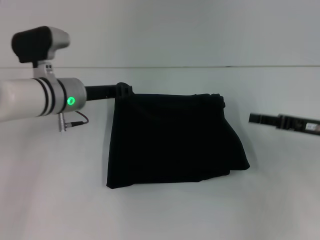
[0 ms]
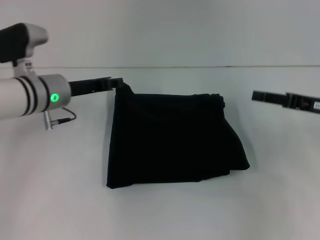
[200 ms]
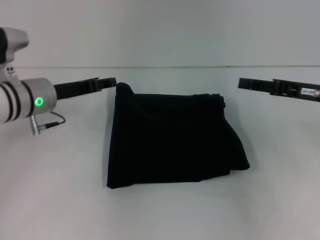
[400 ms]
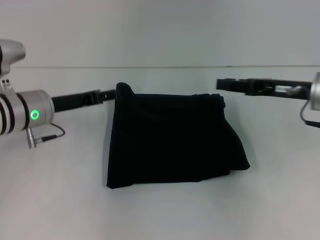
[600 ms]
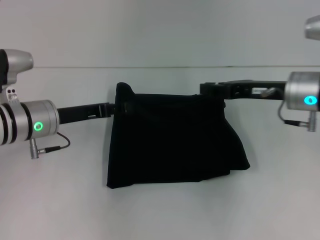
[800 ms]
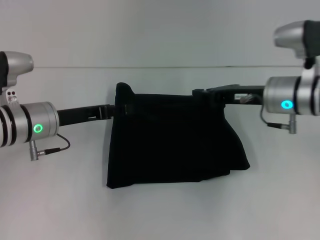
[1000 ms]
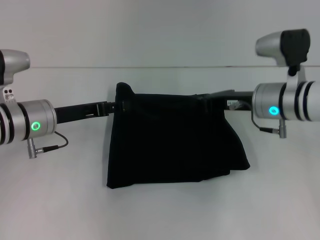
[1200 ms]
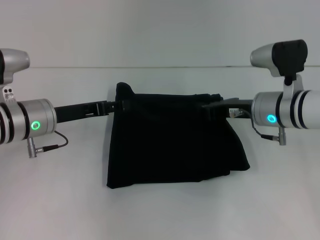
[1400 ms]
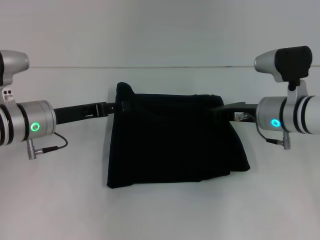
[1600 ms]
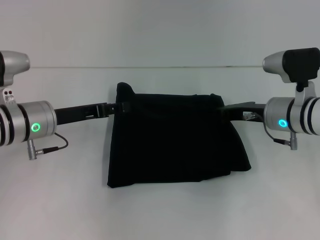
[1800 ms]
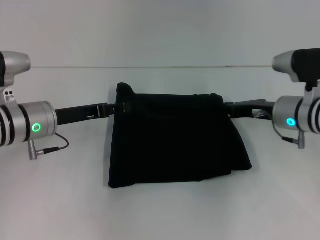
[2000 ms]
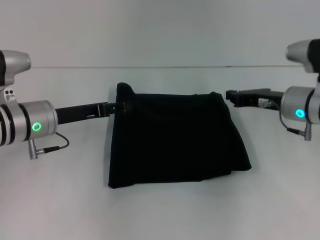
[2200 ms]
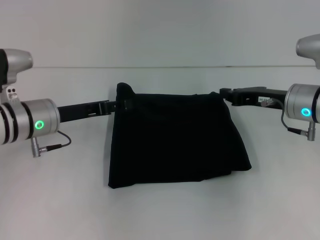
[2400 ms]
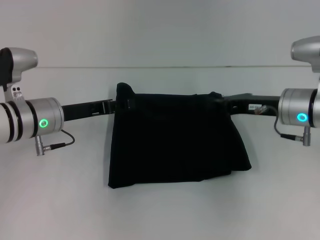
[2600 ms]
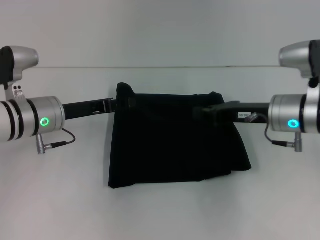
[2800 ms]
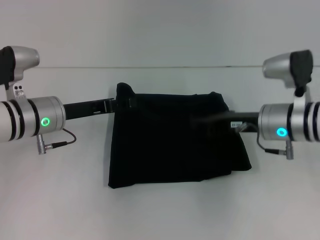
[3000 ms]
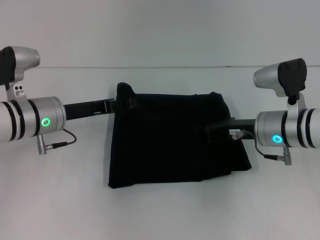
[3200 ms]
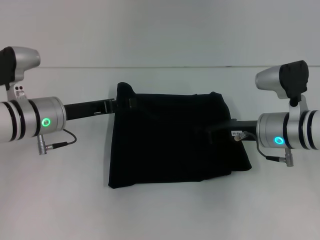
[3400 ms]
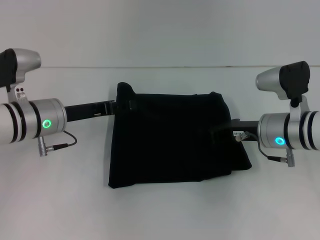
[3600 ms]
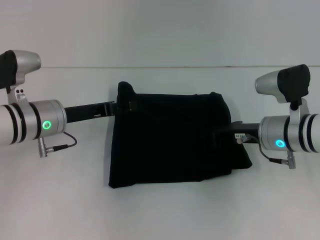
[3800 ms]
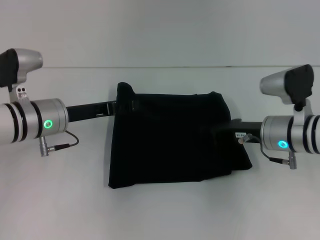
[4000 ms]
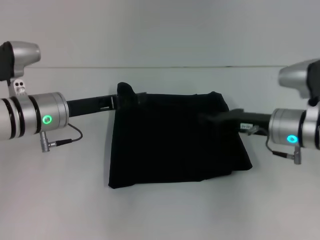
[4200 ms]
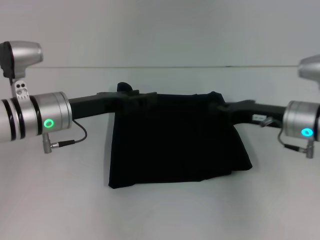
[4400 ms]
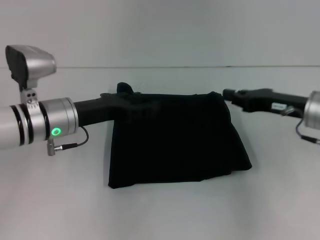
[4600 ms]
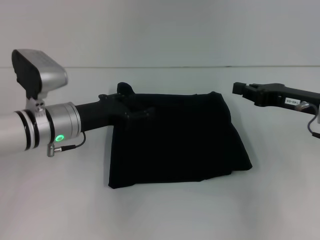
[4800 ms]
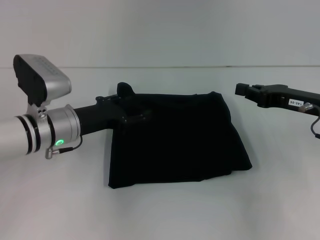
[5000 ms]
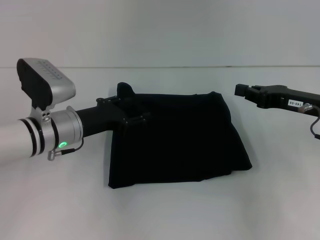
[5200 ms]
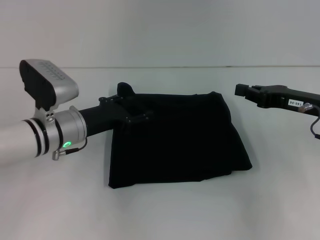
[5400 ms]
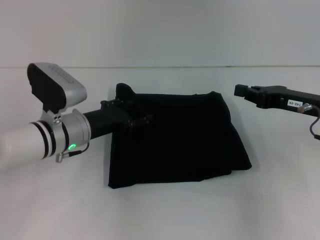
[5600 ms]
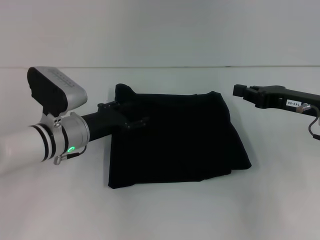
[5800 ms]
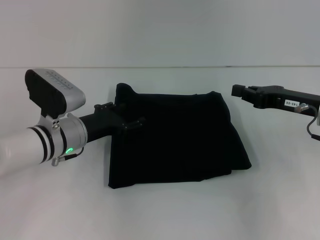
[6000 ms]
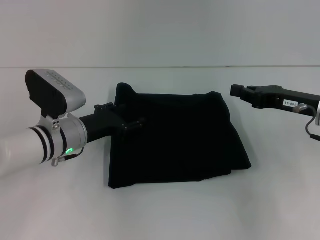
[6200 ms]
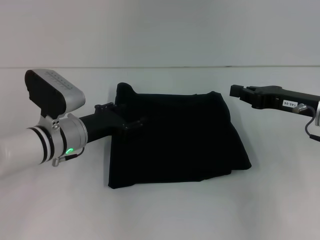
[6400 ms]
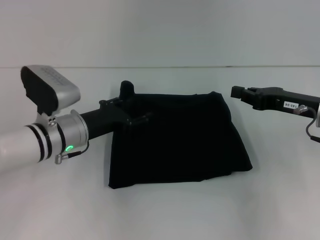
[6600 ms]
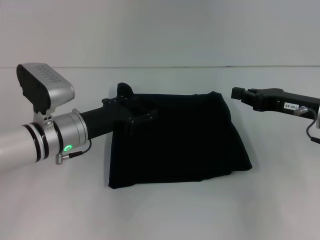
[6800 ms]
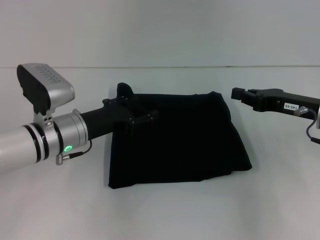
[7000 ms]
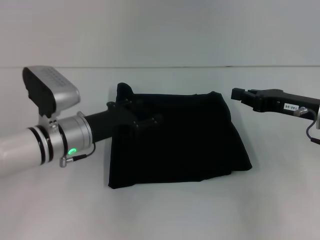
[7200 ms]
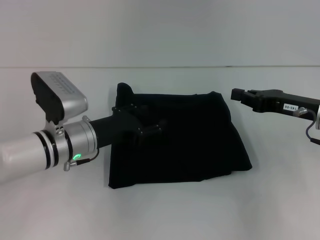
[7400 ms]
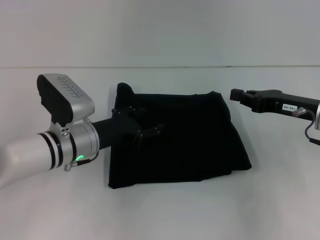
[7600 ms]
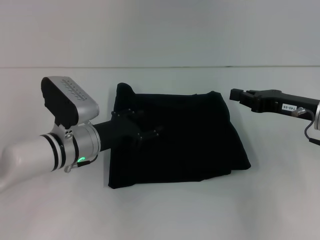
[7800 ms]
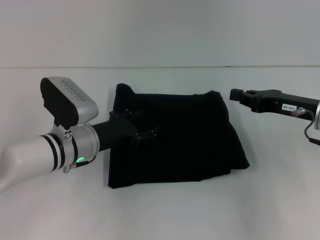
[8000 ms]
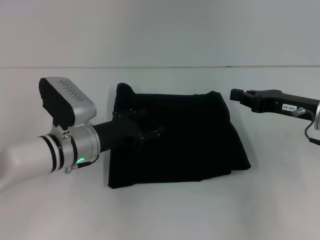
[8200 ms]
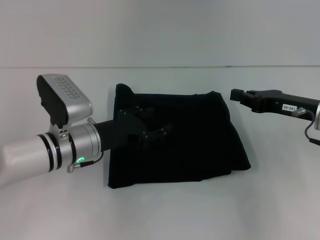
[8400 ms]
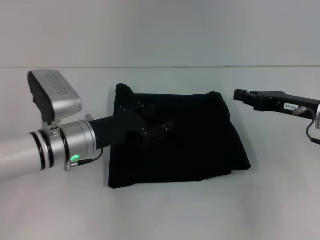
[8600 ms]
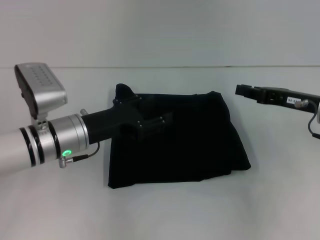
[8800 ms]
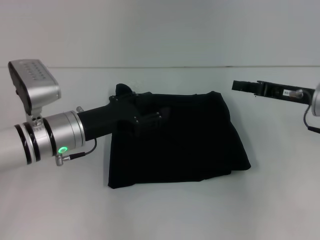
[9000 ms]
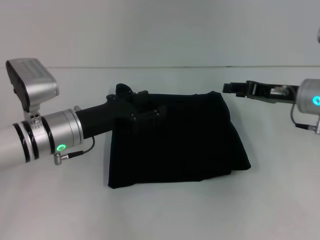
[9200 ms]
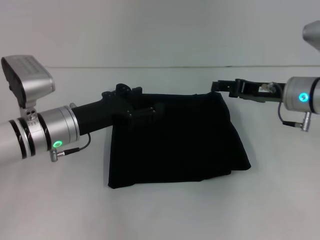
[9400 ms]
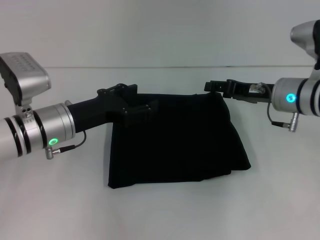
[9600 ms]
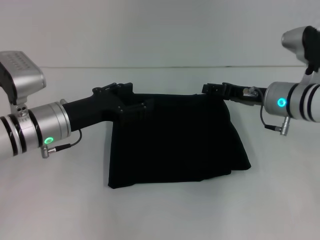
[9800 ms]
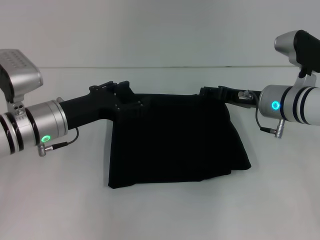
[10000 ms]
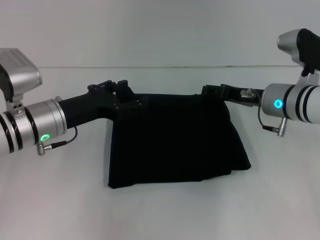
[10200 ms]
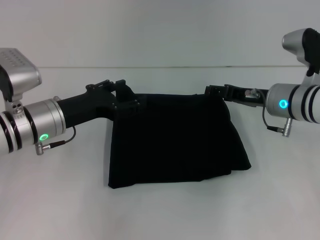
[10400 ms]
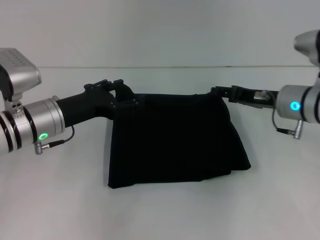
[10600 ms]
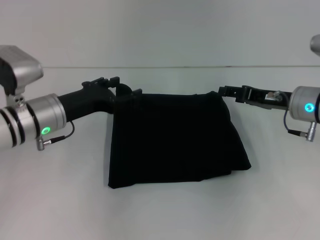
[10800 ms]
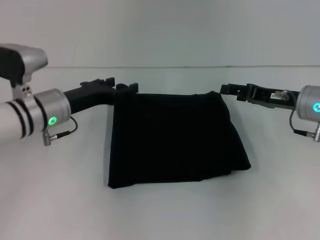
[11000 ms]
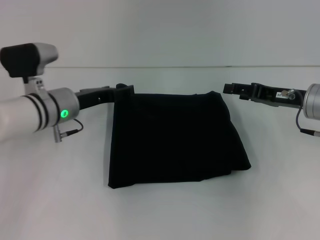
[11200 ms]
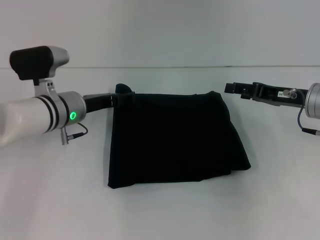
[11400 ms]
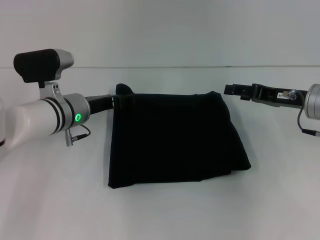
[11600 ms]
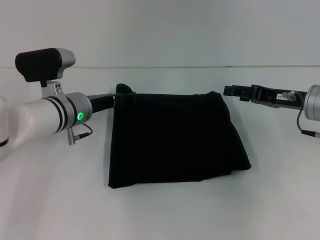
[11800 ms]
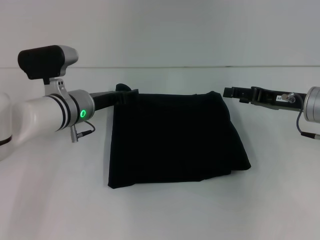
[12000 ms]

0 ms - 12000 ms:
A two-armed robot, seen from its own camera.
0 ms - 1600 ms: The right gripper travels to the left and forward by approximately 10 cm. Meanwhile the left gripper ends up approximately 5 cm from where it was, and opens.
1600 ms - 4400 ms: The grippers stay close to where they were, moving slightly.
4400 ms - 6000 ms: The left gripper heads downward, covering roughly 5 cm.
6000 ms - 7600 ms: There are only small adjustments of the grippers.
7600 ms - 9000 ms: The grippers move only a little.
9000 ms - 10400 ms: The right gripper shifts about 5 cm to the left, and opens its fingers.
10400 ms - 12000 ms: The left gripper shifts roughly 5 cm forward. Meanwhile the right gripper goes roughly 5 cm to the right.

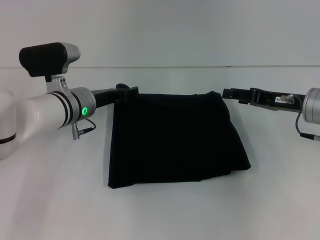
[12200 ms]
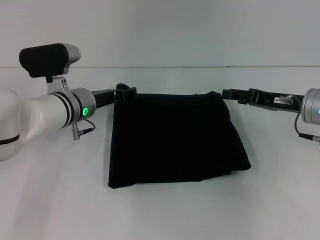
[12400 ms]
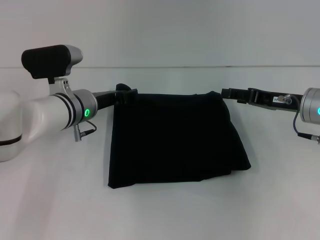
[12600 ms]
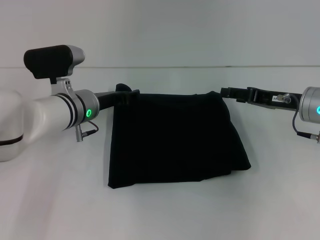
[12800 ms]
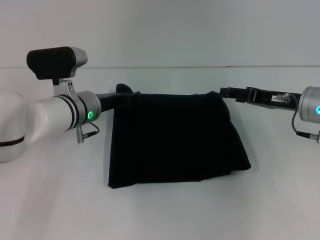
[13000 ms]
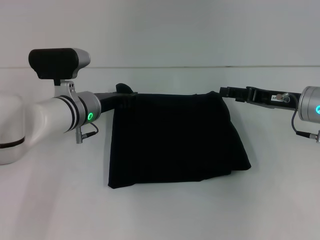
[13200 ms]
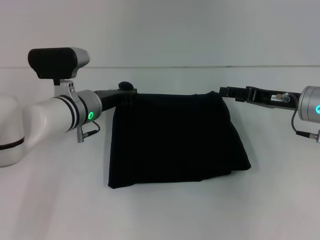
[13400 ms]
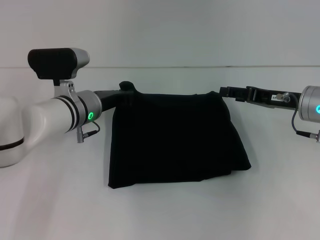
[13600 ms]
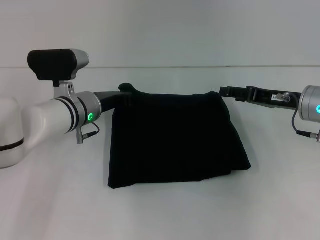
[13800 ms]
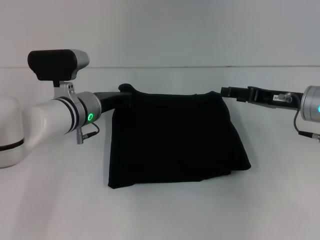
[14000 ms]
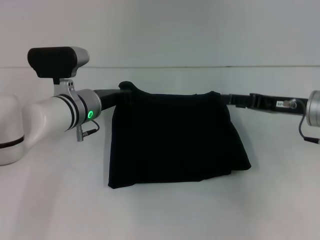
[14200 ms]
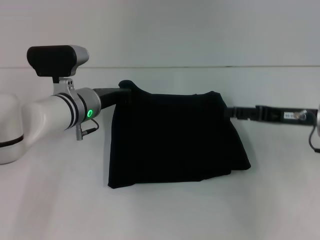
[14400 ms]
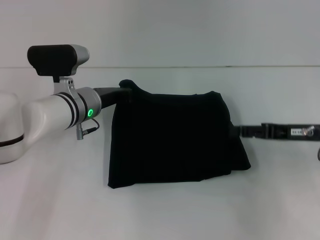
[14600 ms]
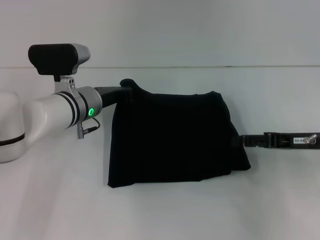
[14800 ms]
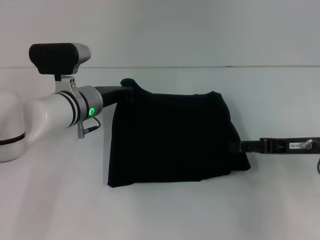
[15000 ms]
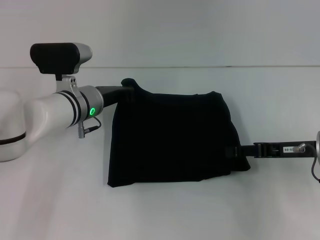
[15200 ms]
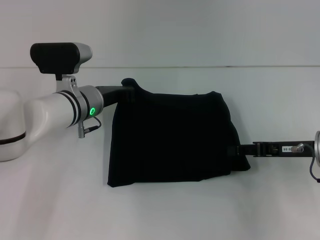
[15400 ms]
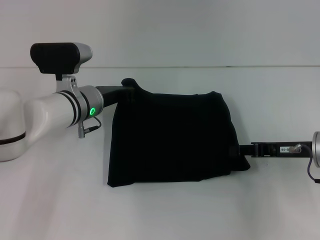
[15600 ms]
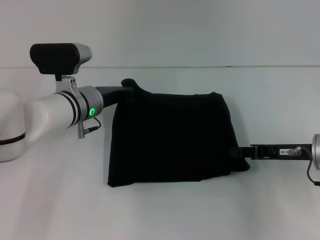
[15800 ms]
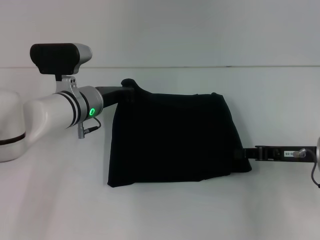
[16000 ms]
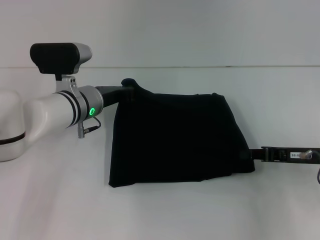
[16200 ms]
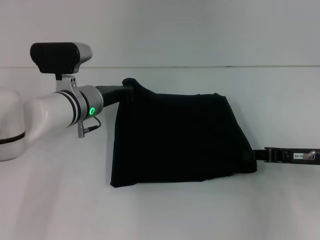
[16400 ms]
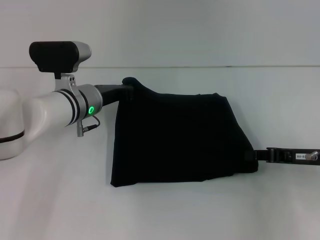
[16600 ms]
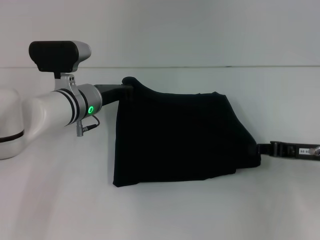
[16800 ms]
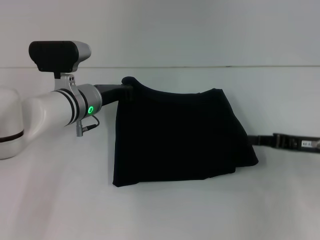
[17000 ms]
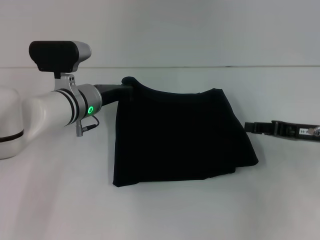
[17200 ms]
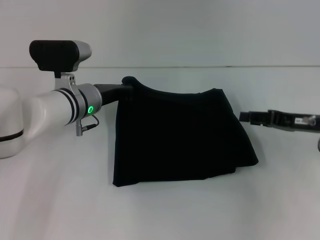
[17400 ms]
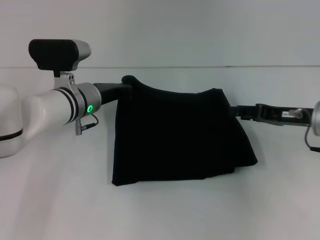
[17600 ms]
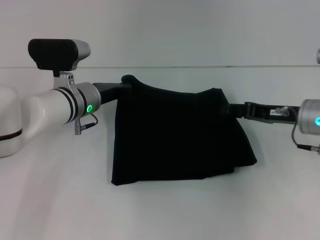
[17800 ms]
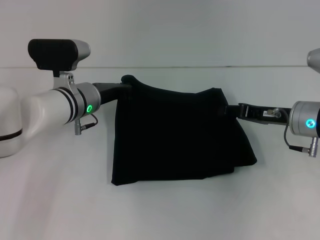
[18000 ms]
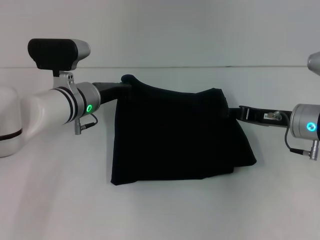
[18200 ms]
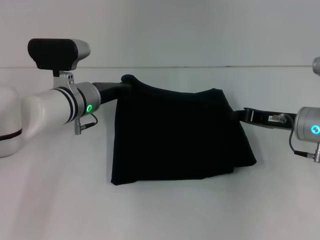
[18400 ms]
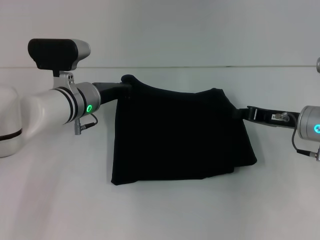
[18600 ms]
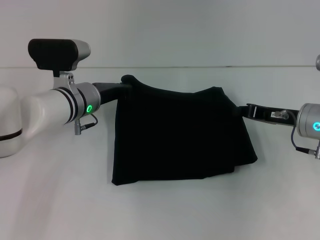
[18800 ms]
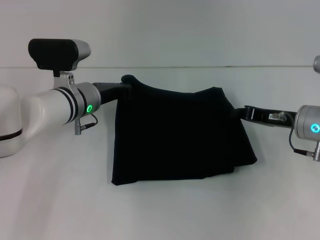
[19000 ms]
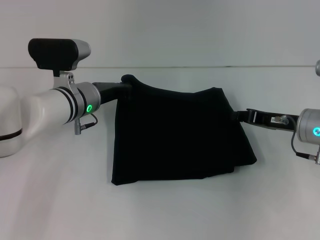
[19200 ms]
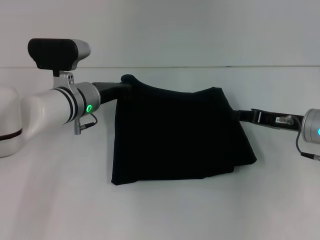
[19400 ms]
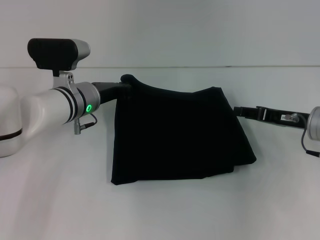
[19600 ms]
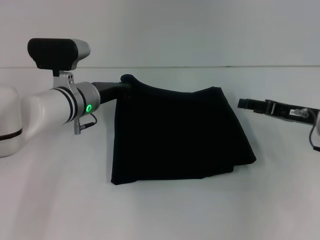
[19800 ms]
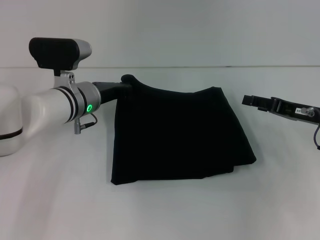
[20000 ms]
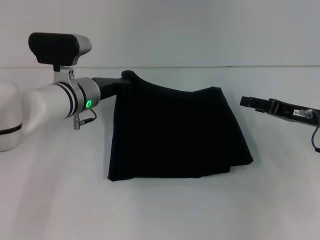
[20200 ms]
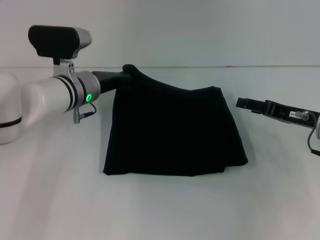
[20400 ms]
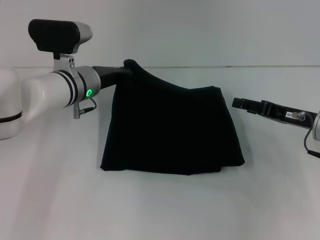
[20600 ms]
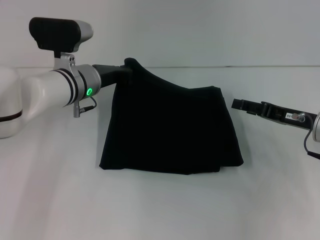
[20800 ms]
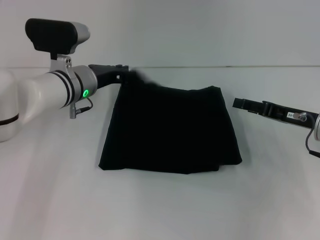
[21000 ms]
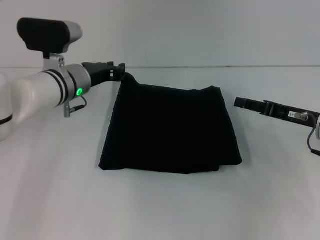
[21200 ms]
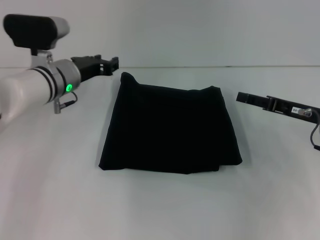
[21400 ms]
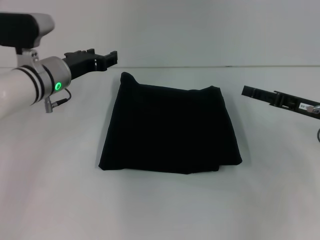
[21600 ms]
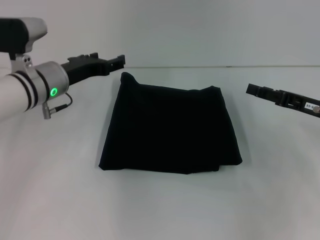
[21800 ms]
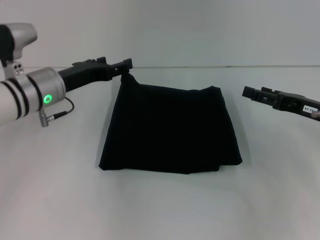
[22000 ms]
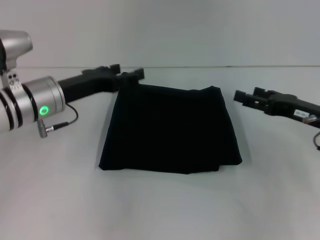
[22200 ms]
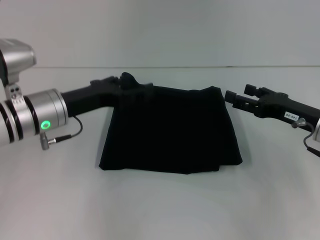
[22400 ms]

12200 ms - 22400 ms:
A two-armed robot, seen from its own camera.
12200 ms - 13600 ms: The left gripper closes its fingers.
13600 ms - 15200 ms: The right gripper moves backward, roughly 5 cm; the left gripper closes up.
15200 ms - 16600 ms: The right gripper closes.
16600 ms - 18000 ms: The right gripper heads forward and to the left, covering about 10 cm, and opens its fingers.
18000 ms - 19400 ms: The right gripper closes up.
19400 ms - 21000 ms: The right gripper opens.
21000 ms - 22400 ms: The left gripper is displaced backward by roughly 5 cm, and opens its fingers.
